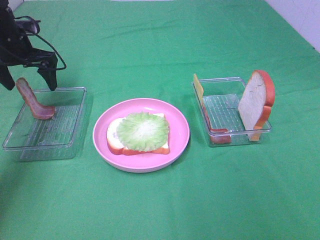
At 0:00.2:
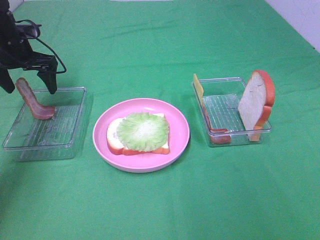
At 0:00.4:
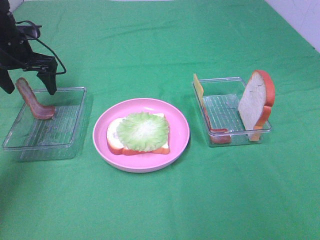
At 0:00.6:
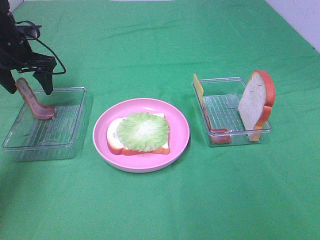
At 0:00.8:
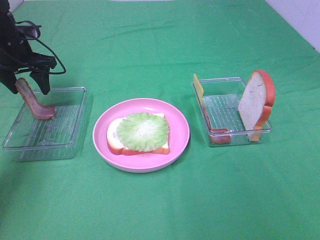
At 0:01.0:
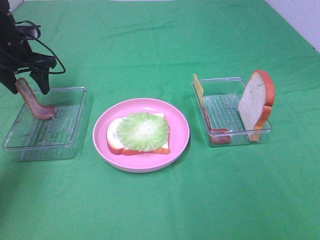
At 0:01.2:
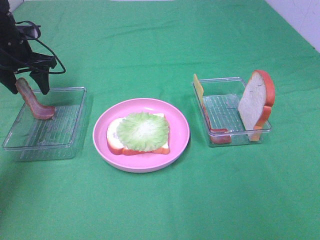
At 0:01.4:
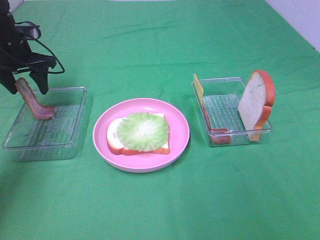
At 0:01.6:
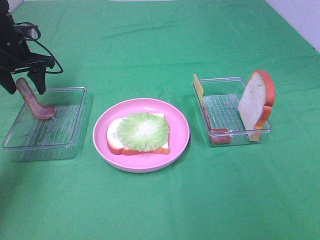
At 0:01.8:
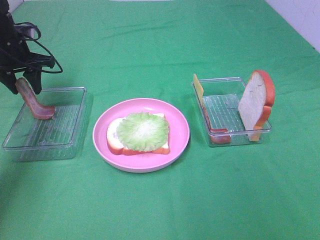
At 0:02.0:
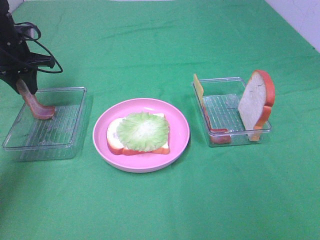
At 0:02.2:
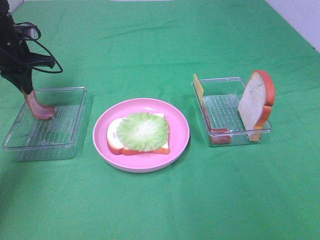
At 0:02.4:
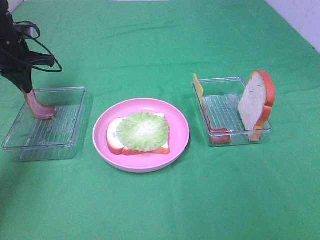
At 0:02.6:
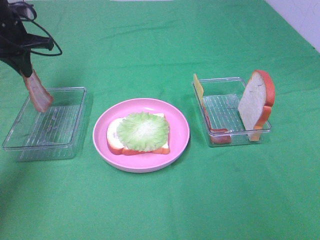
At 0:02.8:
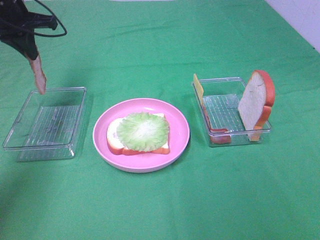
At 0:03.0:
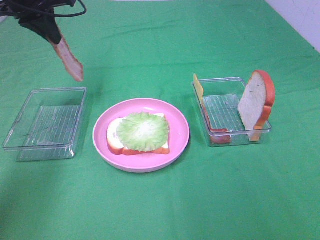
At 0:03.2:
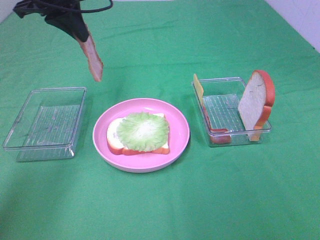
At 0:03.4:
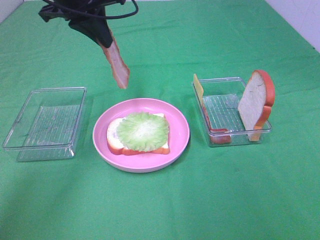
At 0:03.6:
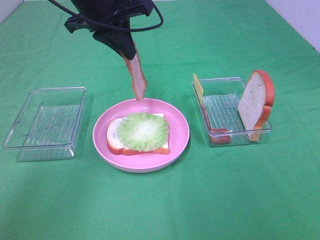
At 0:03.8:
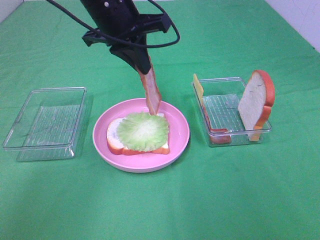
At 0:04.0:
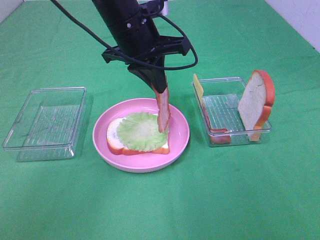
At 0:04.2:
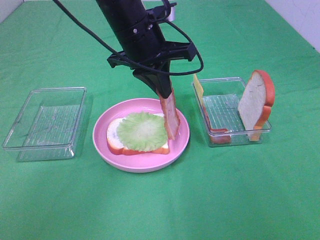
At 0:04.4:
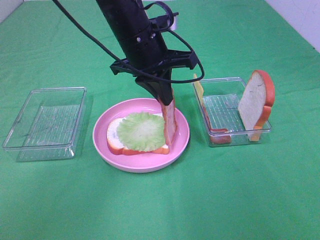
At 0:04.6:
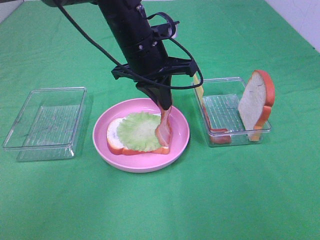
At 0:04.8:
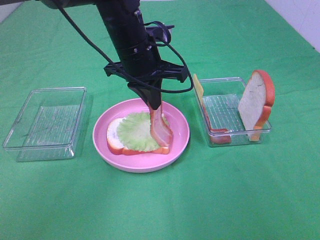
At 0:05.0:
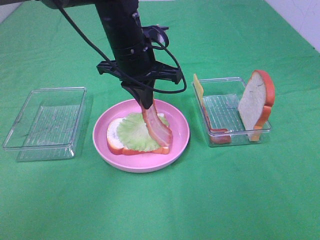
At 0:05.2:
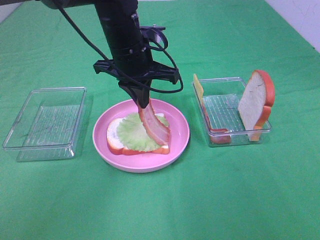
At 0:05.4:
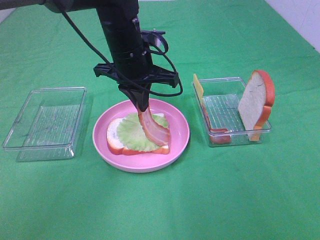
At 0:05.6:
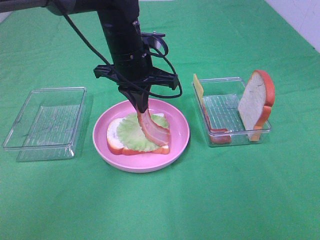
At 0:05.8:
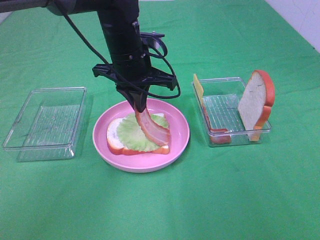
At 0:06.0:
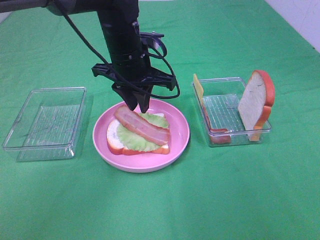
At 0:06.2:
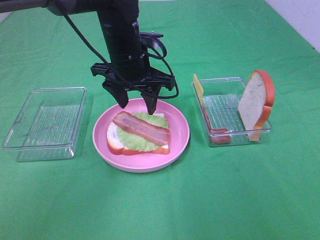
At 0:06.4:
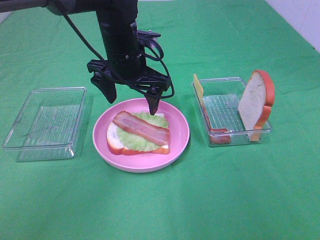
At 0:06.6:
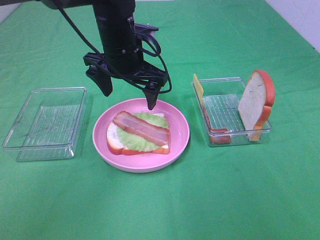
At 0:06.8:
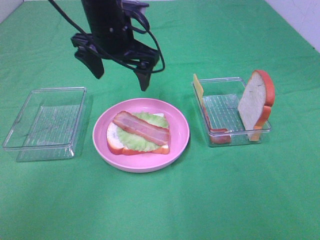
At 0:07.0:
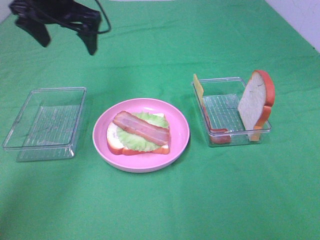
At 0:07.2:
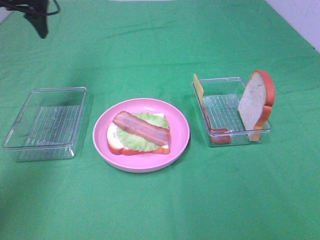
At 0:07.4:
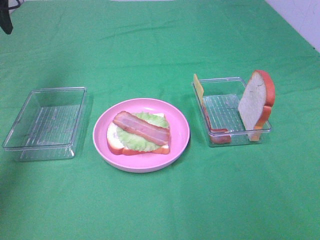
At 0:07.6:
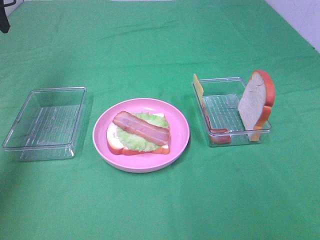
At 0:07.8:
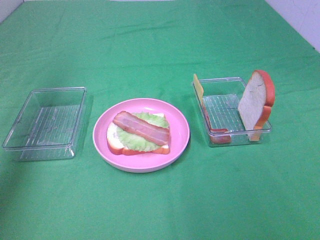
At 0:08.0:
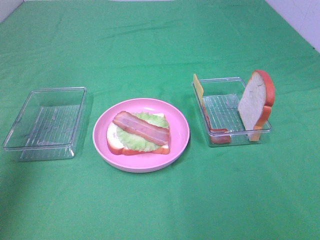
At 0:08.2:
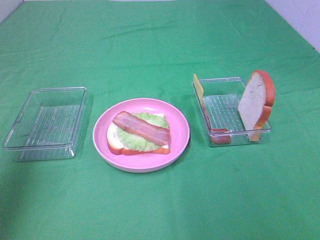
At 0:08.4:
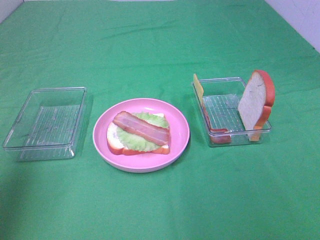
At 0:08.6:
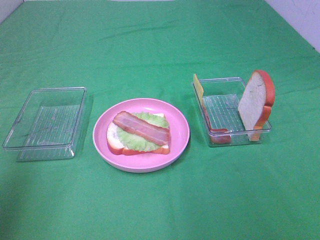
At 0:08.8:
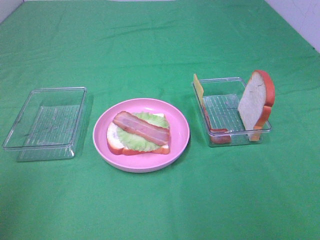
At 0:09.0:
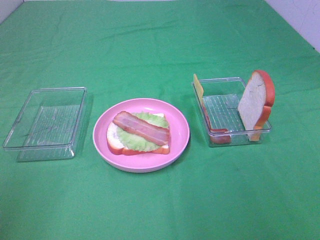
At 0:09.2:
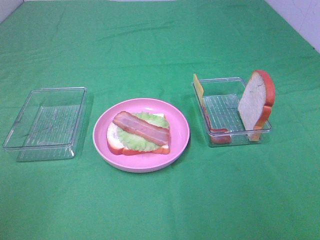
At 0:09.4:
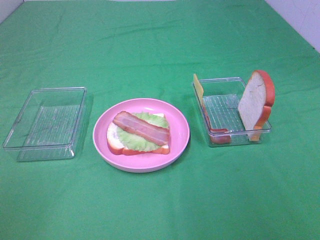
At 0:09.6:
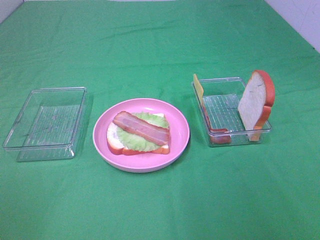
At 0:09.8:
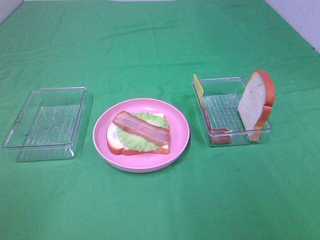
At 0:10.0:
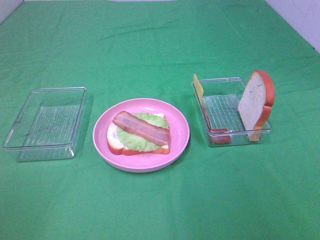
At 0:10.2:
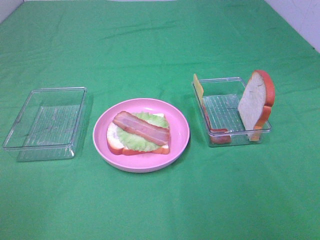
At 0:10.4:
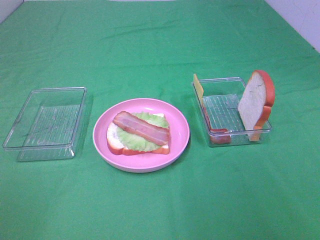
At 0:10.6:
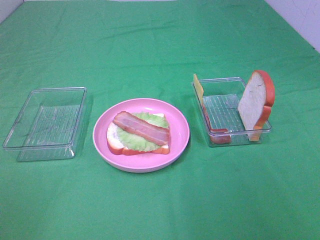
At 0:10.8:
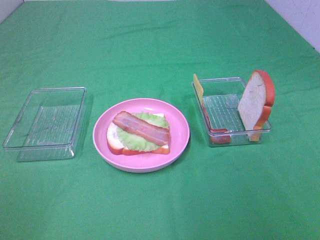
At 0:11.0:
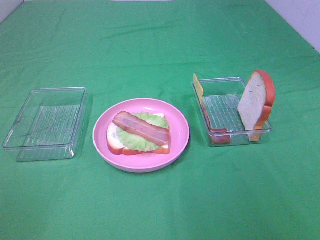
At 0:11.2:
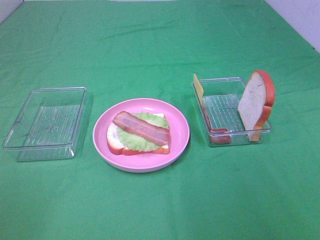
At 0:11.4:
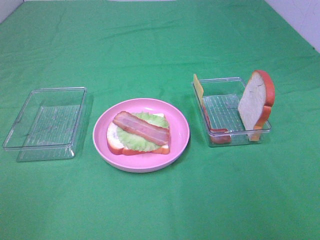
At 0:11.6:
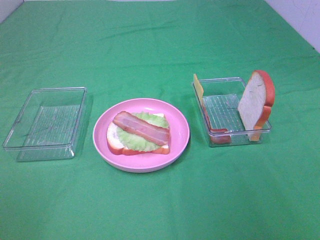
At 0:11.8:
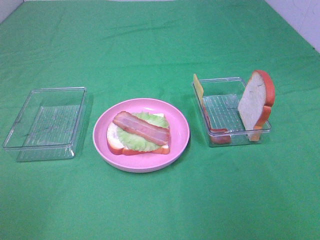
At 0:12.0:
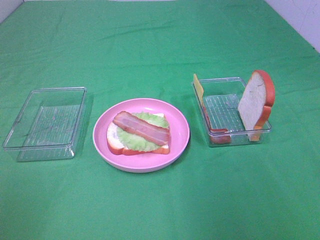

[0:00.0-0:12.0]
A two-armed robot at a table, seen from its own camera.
Task of the whole recording: Make sandwiches.
Step, 0:00.0 to 0:02.4: Left hand:grab the bacon.
Step, 0:02.6 to 0:06.0: Left hand:place bacon on lettuce slice.
0:00.0 to 0:01.6: The left gripper closes.
0:01.6 to 0:03.0: The left gripper is displaced upward and to the right by roughly 15 cm, and closes its fingers.
0:03.0 to 0:04.4: The left gripper moves to the right, some 20 cm.
0:04.4 to 0:06.0: The grippers move only a little.
0:06.0 to 0:07.6: The left gripper heads to the left and upward, covering about 30 cm, and opens.
0:07.6 to 0:09.0: The left gripper moves backward, approximately 40 cm.

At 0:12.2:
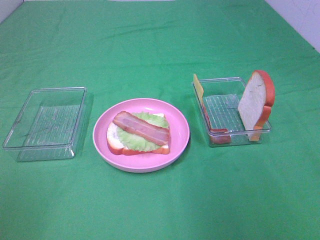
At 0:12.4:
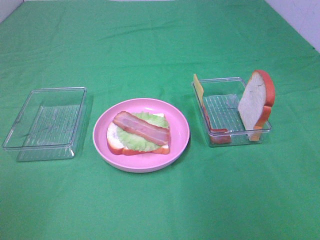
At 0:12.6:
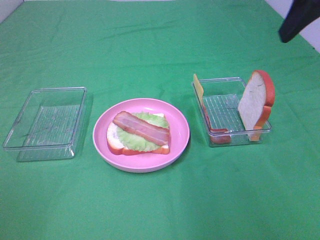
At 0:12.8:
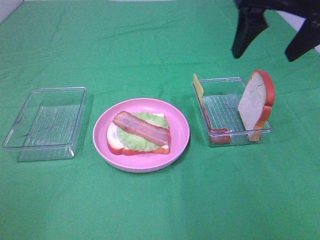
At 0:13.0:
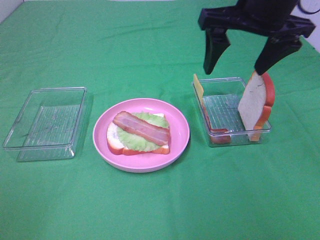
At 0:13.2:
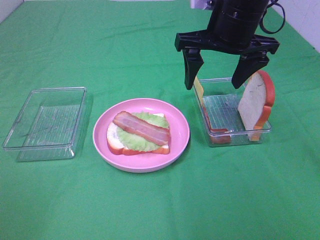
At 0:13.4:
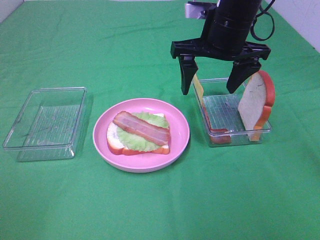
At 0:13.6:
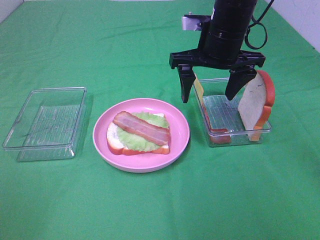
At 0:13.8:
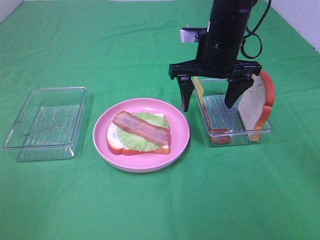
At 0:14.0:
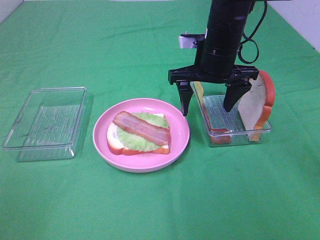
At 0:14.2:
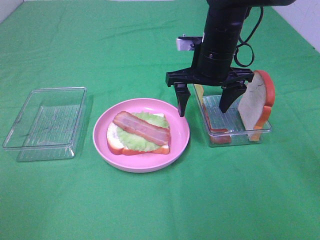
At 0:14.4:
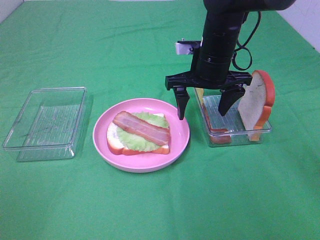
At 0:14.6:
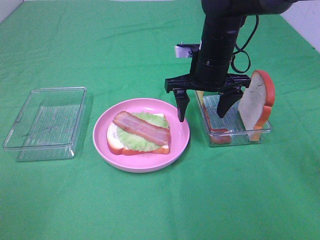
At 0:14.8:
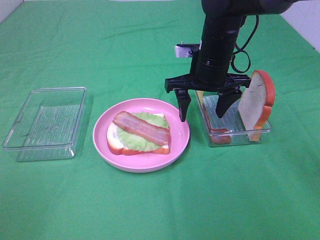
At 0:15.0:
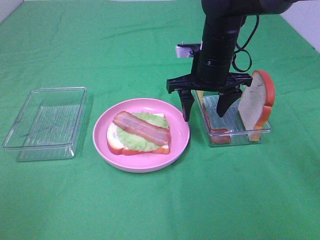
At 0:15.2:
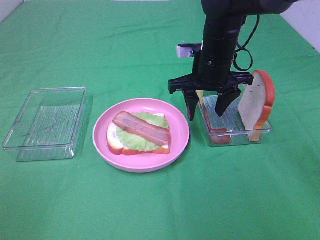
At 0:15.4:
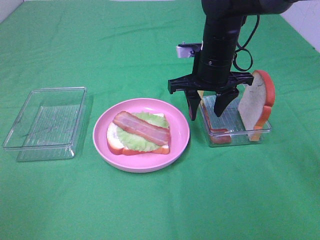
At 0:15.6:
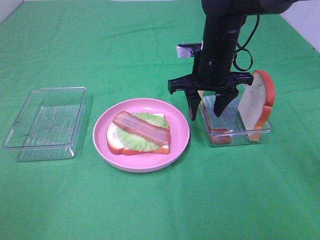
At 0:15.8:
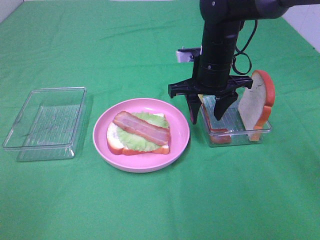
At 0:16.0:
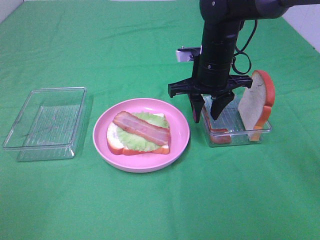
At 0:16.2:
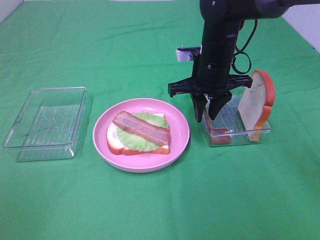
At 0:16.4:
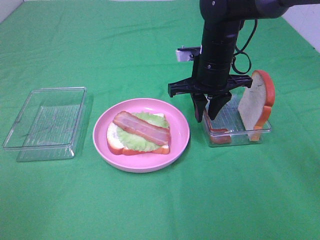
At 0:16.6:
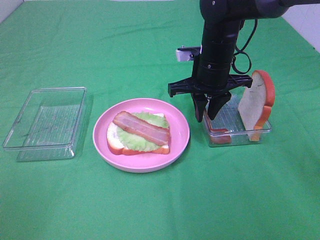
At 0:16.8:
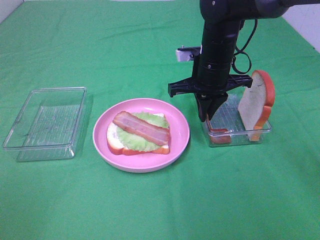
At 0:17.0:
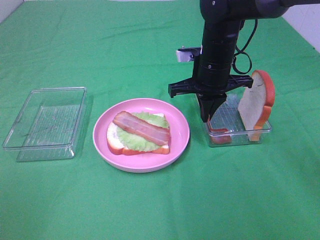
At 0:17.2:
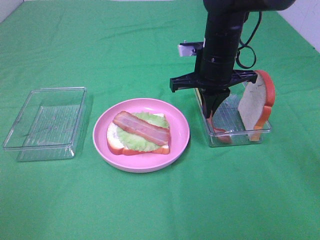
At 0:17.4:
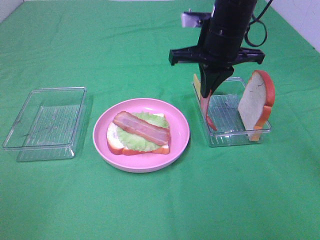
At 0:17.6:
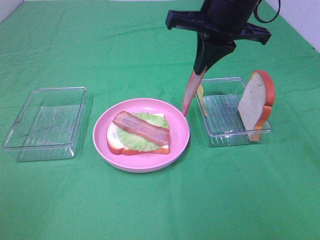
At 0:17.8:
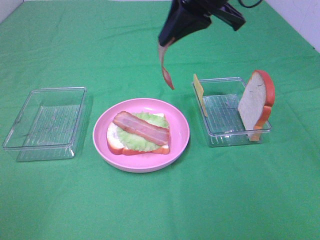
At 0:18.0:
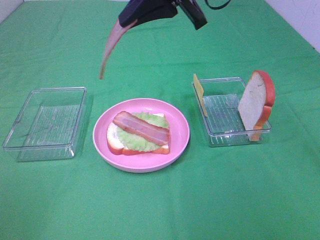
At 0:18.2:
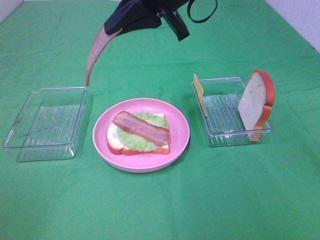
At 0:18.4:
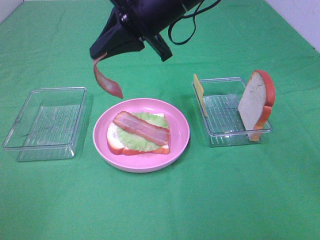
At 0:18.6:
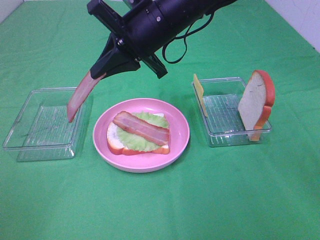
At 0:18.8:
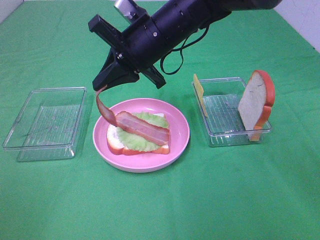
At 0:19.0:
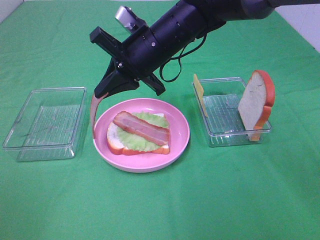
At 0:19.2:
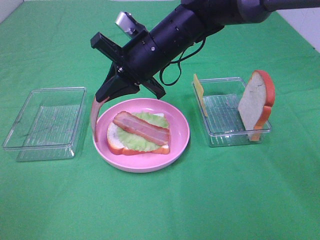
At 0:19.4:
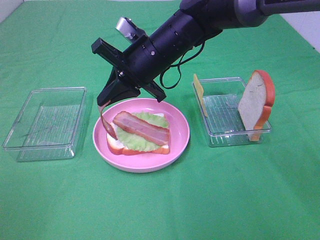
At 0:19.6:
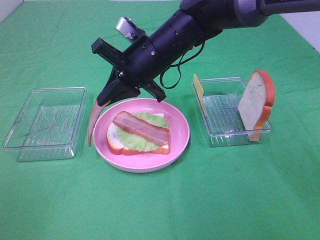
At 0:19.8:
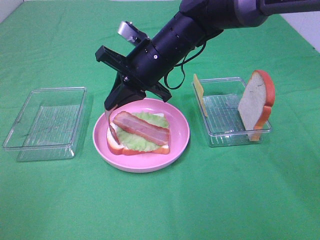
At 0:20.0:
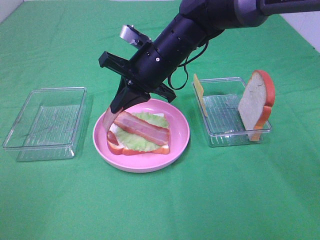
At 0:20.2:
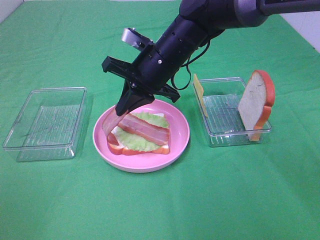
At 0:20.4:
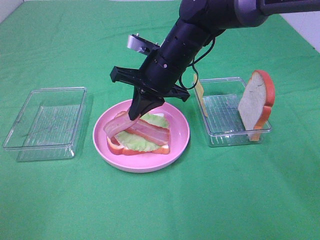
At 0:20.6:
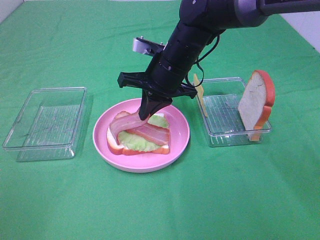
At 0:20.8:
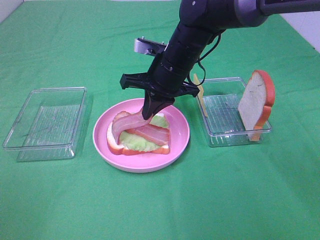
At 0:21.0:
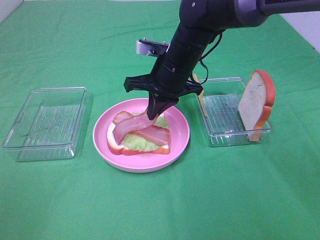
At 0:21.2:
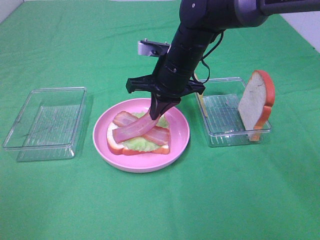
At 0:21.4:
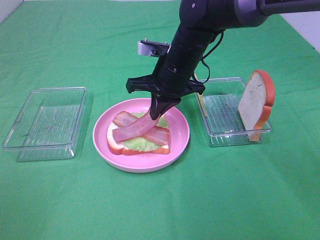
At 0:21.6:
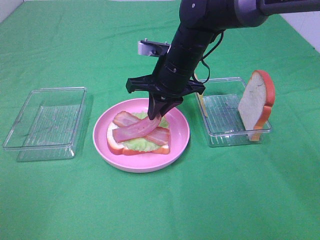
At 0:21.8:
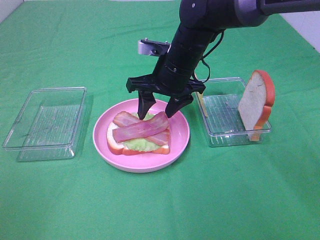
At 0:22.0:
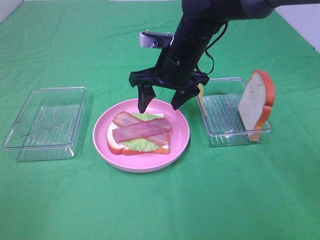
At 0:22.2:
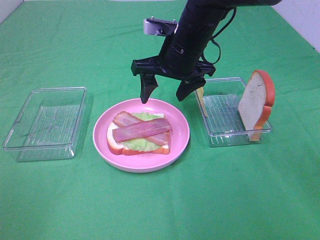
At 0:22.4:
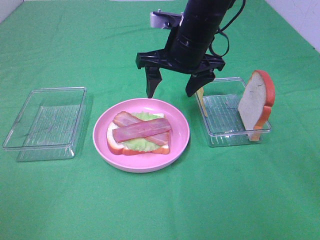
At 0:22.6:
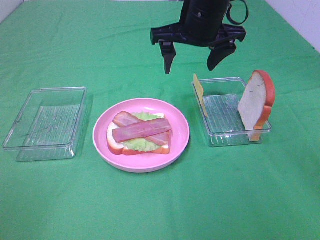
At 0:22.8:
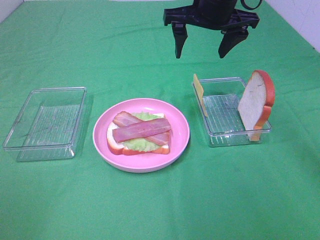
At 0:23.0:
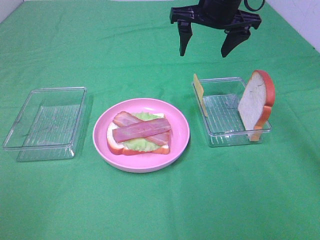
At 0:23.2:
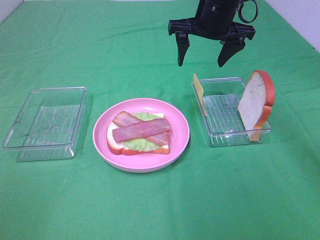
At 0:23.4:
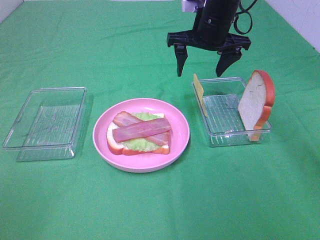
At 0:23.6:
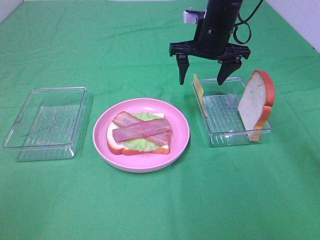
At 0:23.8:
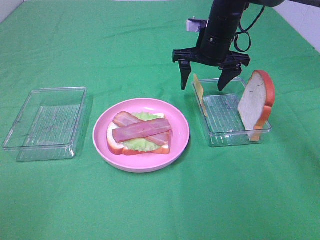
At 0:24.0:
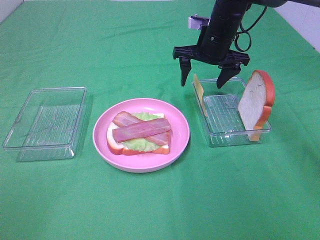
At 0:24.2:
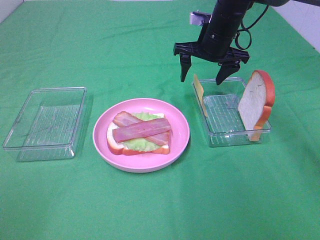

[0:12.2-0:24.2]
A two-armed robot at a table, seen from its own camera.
Task of the whole recording: Make sandwiches.
Step, 0:12.2 to 0:17.2: Right hand:grab the bacon.
Step, 0:17.4 to 0:21.8: Right hand:place bacon on bacon.
0:12.2 to 0:13.8: The right gripper travels forward, to the left and downward by approximately 30 cm.
0:13.8 to 0:15.2: The grippers move only a little.
0:15.2 to 0:16.6: The right gripper closes up.
0:16.6 to 0:18.2: The right gripper heads upward and to the left, covering some 15 cm.
0:18.2 to 0:19.8: The right gripper travels downward by some 10 cm.
0:21.2 to 0:22.6: The right gripper moves upward, some 10 cm, and opens its fingers.
0:22.6 to 0:24.2: The right gripper travels forward and downward by some 10 cm.
